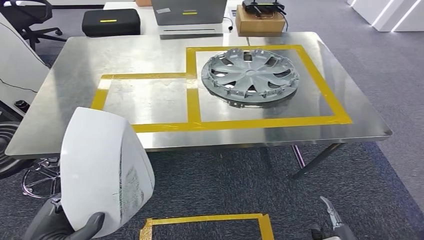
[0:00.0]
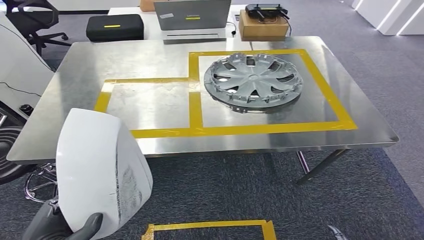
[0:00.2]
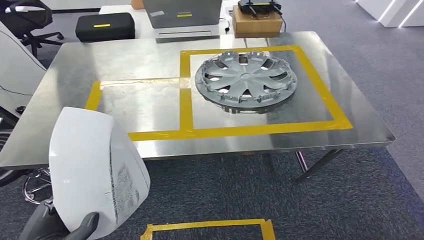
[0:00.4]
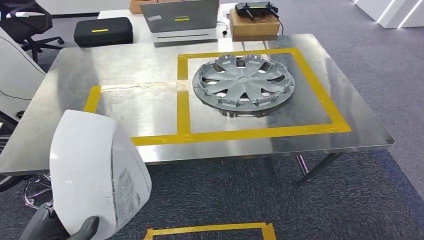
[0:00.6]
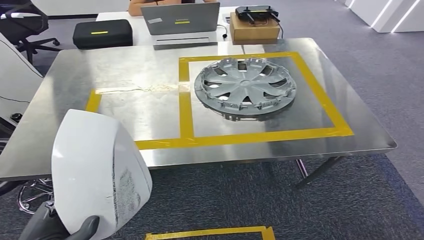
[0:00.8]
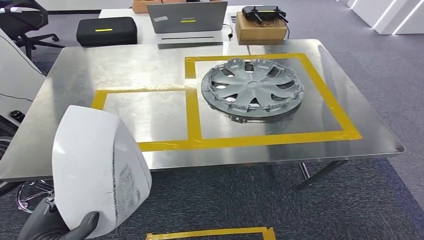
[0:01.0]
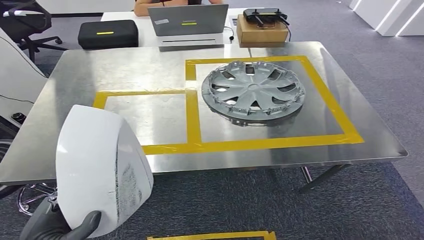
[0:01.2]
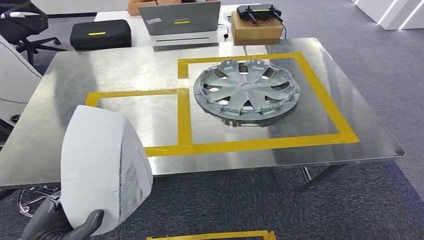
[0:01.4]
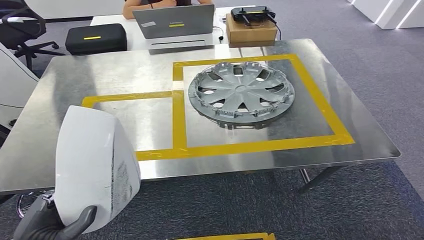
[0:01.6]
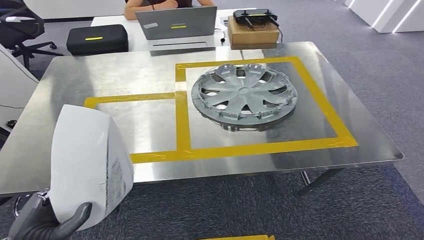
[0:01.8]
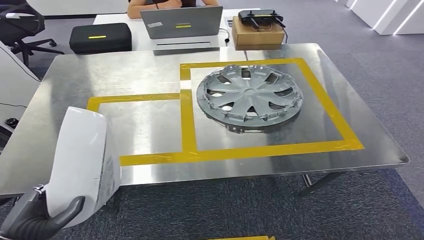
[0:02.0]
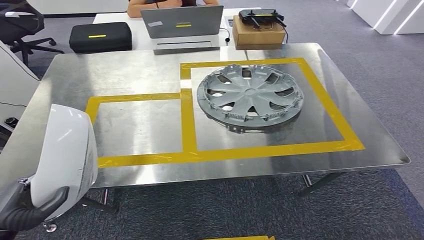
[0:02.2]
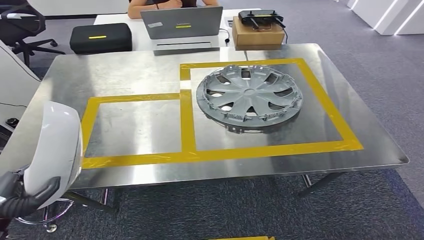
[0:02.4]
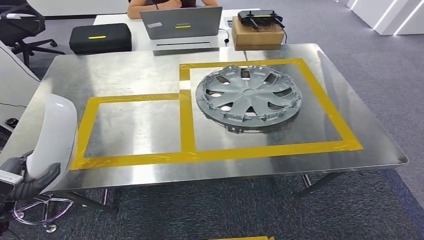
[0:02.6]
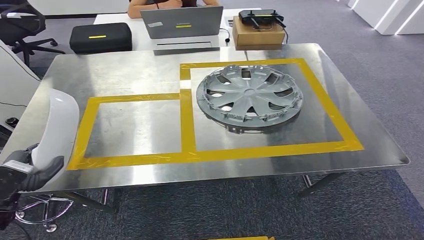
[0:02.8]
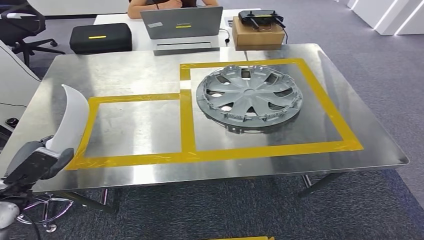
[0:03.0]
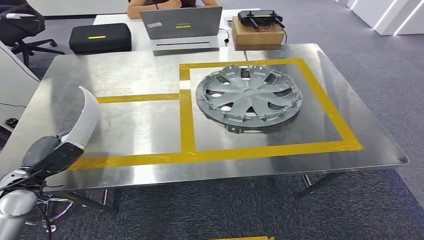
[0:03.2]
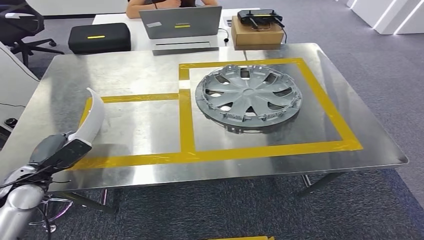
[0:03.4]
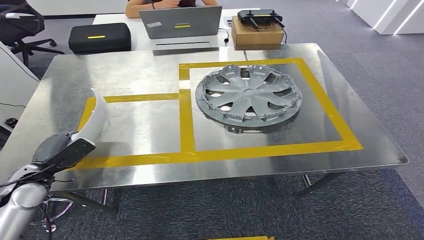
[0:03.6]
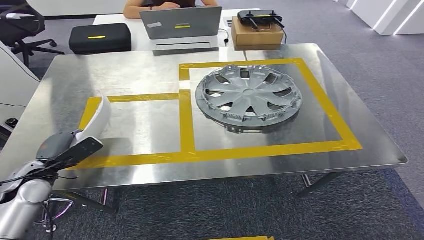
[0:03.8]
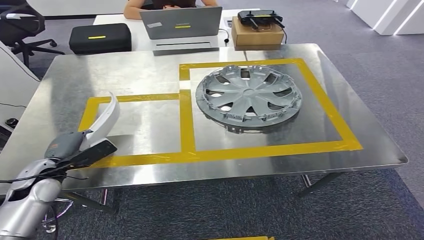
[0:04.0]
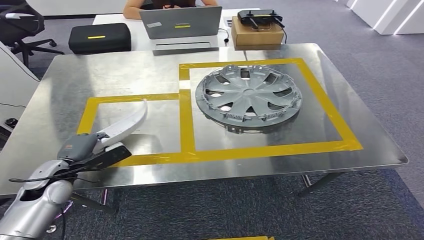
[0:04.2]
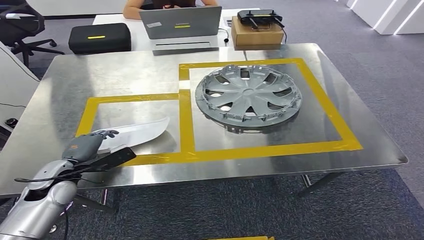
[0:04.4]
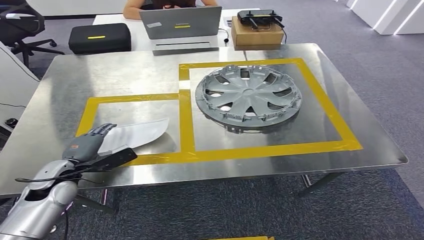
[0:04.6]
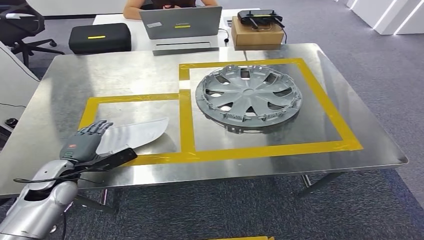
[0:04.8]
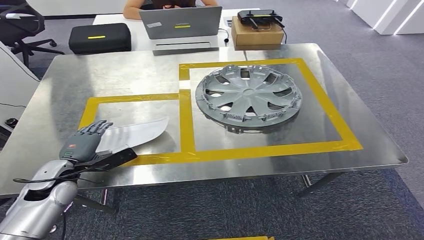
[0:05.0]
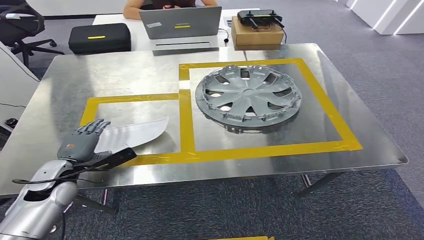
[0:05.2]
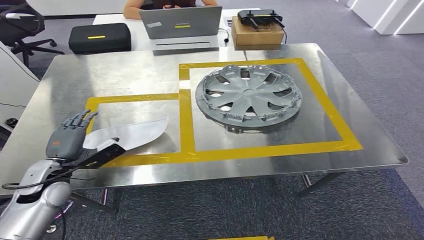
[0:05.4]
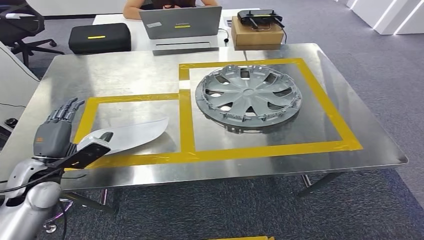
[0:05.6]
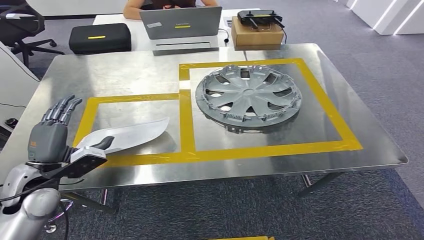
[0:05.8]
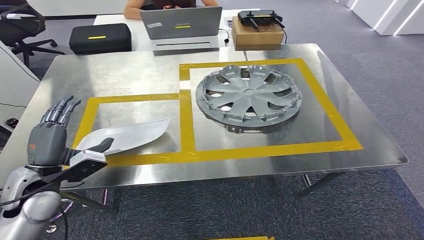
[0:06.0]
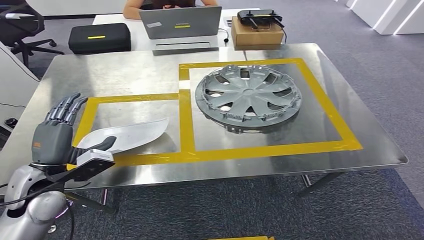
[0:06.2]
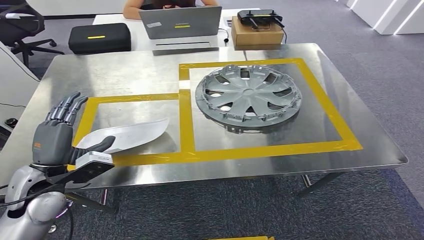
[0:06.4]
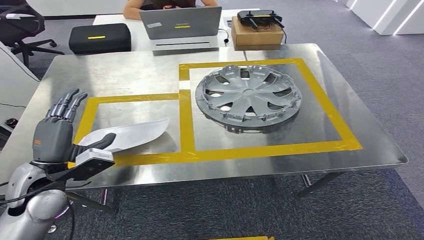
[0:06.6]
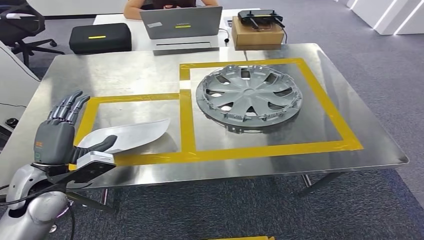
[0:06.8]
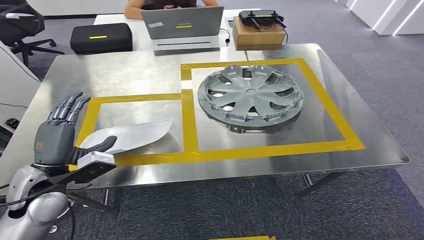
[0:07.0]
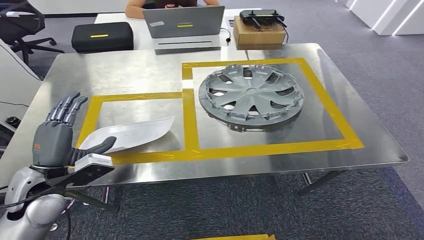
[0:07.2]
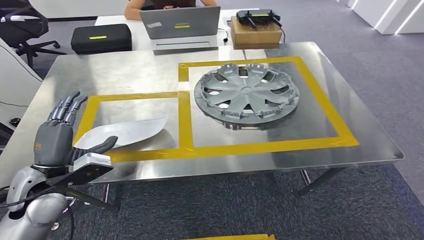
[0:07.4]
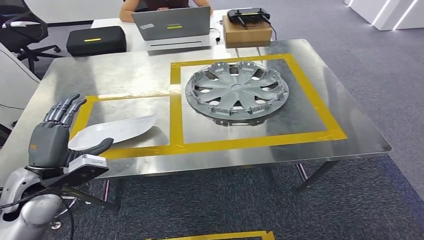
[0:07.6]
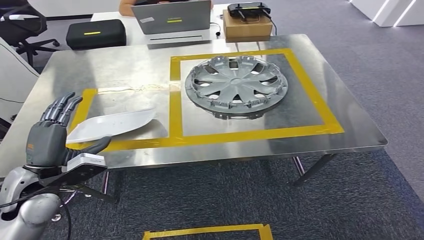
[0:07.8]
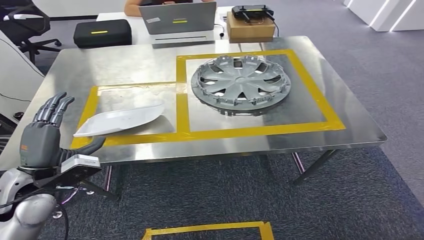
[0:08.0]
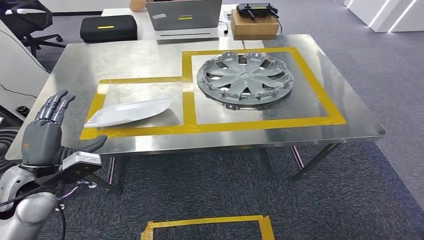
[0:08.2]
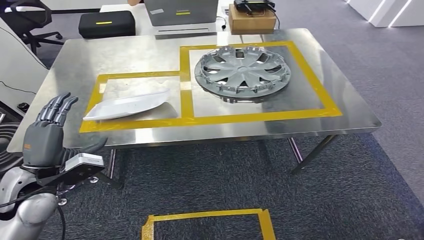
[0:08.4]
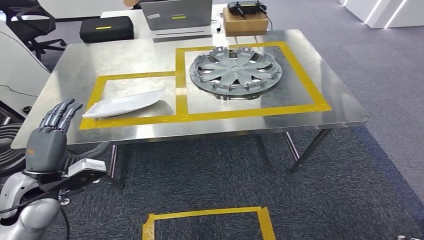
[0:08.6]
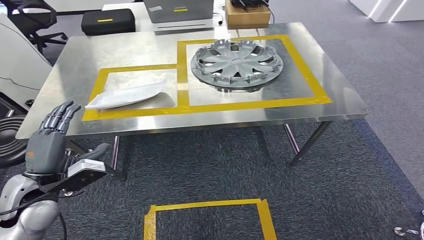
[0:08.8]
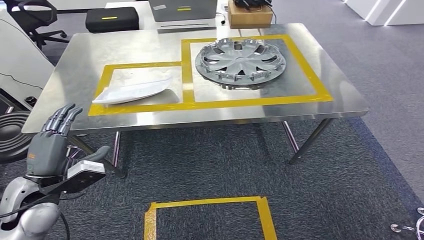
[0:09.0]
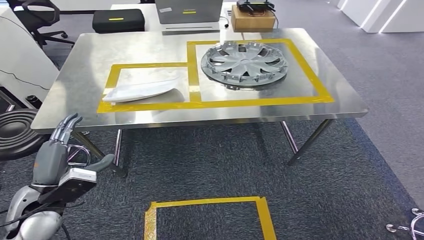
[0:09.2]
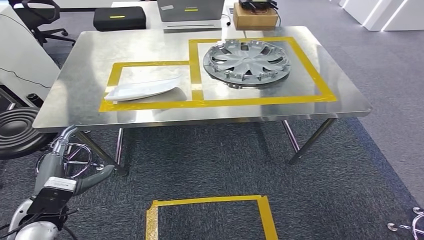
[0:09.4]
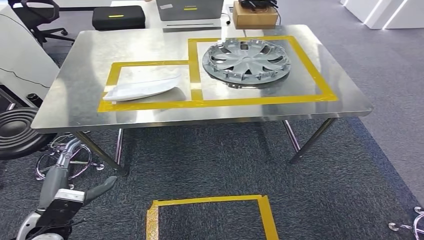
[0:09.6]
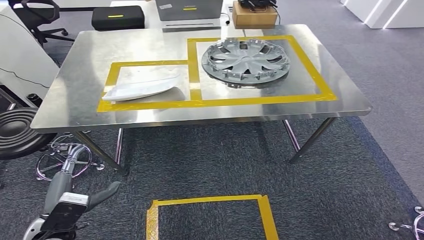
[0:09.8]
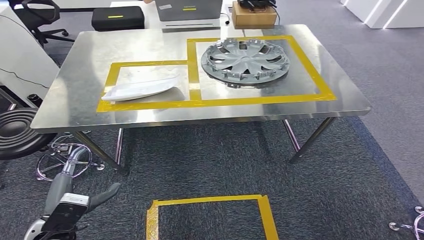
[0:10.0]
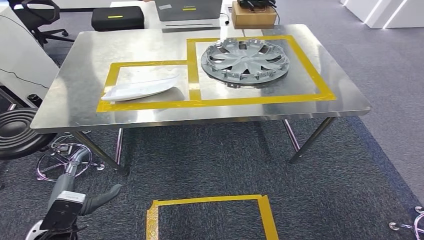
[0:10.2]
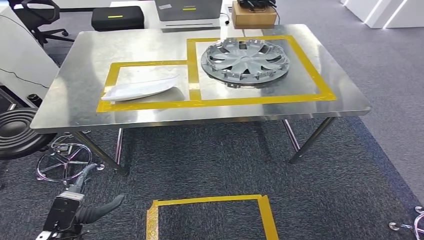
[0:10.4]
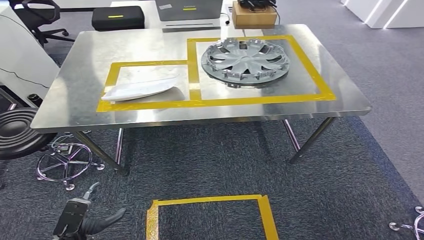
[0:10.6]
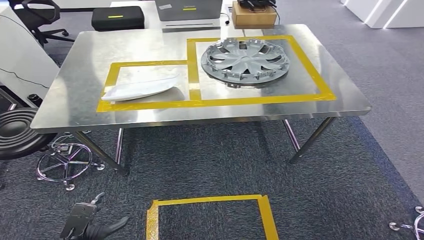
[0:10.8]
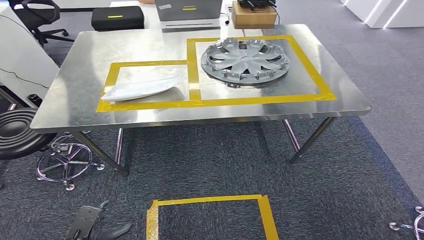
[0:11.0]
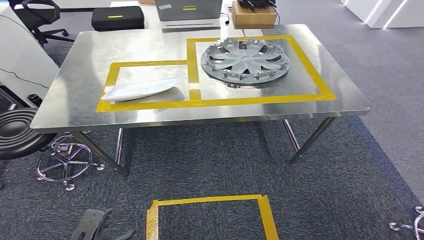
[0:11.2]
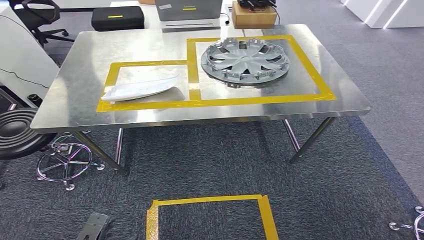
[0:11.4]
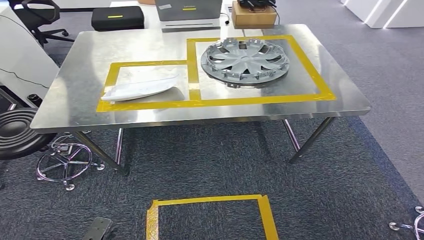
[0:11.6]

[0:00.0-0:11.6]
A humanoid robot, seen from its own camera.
Step, 0:00.0 to 0:06.2: Insert the small parts into the corresponding slots on the workbench.
Step, 0:06.4 to 0:11.6: Return to the initial position at the workbench.
0:02.8 to 0:04.4: The left hand goes some 10 cm forward and to the right.
0:04.4 to 0:05.8: The left hand travels upward by approximately 5 cm.
0:05.8 to 0:07.2: The hands stay close to where they were, moving slightly.
0:10.2 to 0:11.6: The left hand is displaced downward and backward by approximately 20 cm.
